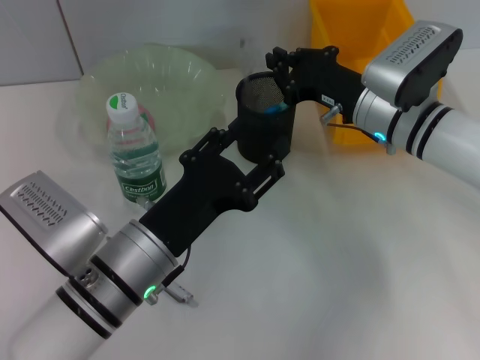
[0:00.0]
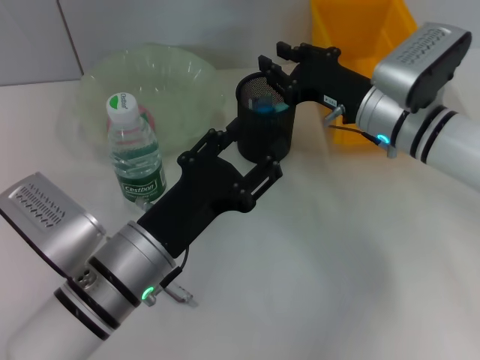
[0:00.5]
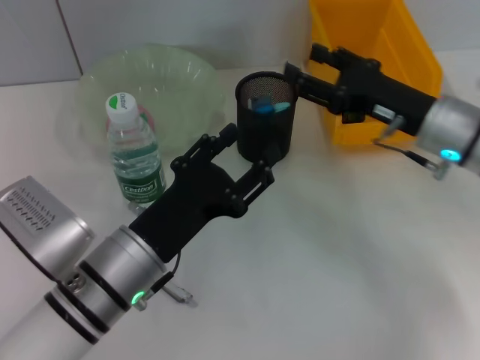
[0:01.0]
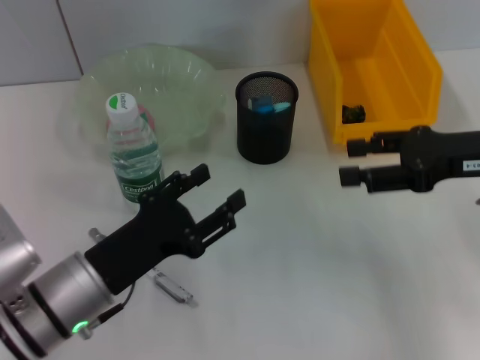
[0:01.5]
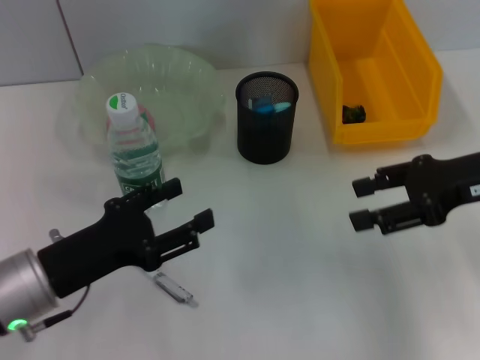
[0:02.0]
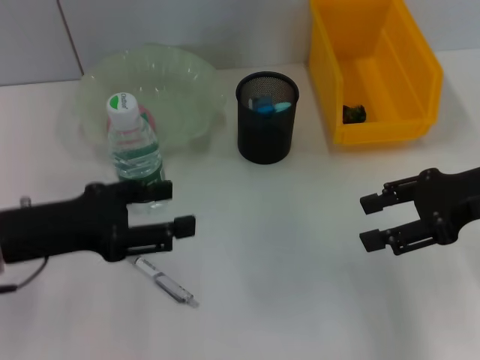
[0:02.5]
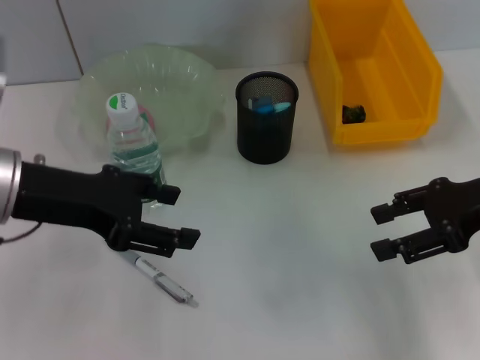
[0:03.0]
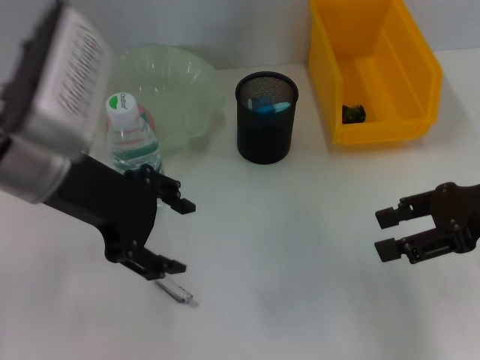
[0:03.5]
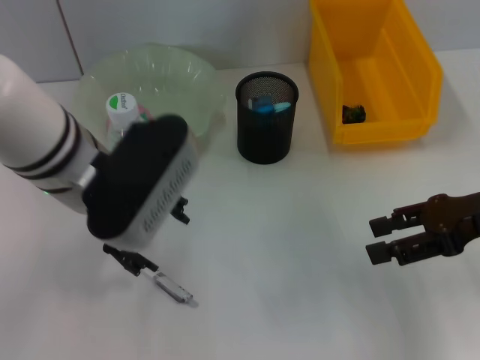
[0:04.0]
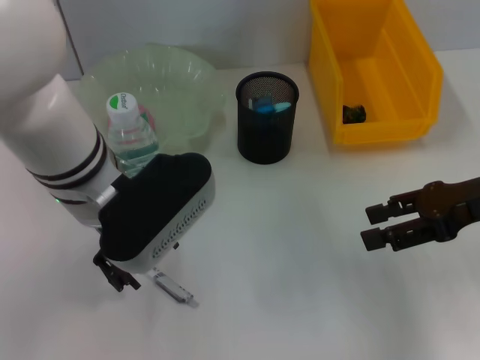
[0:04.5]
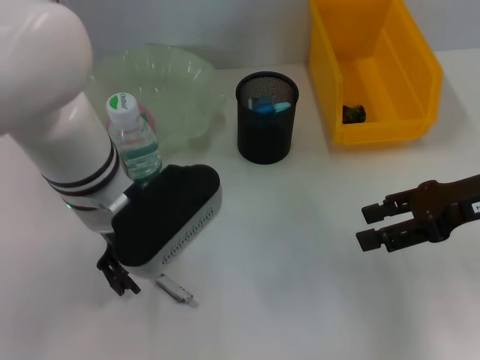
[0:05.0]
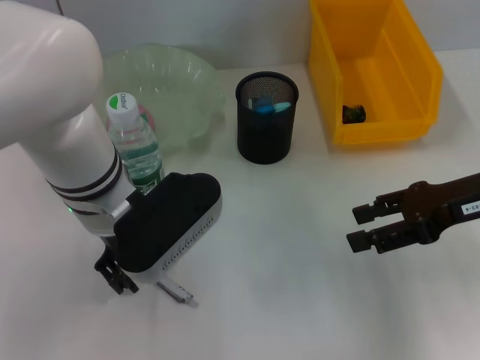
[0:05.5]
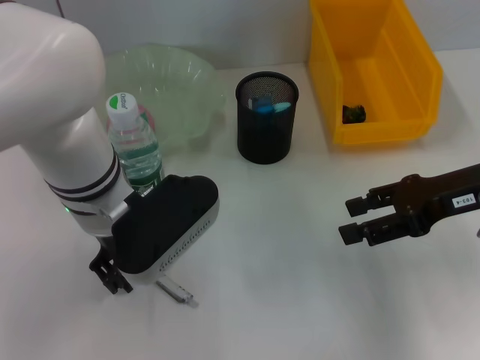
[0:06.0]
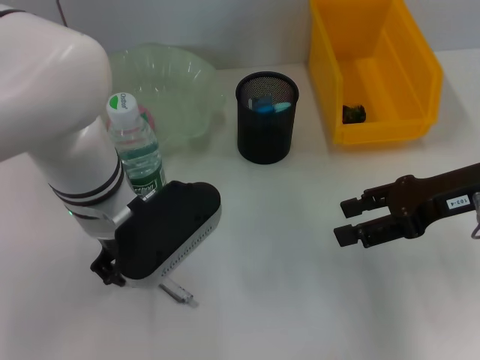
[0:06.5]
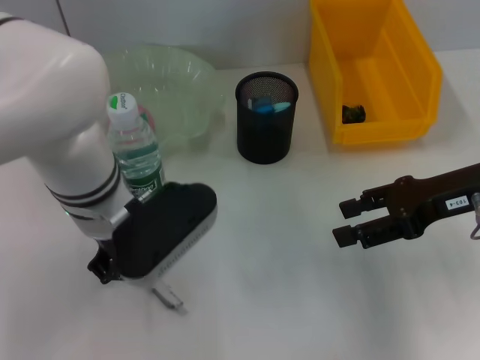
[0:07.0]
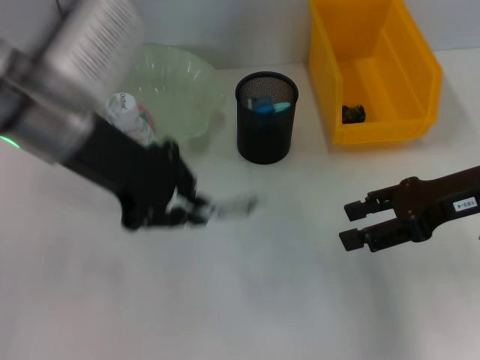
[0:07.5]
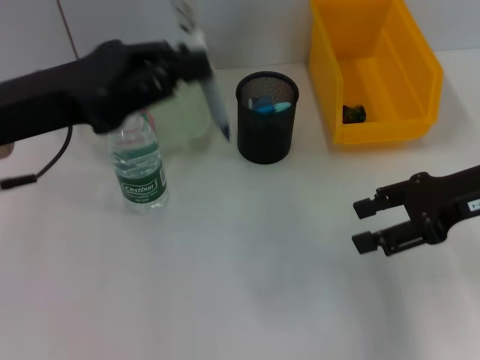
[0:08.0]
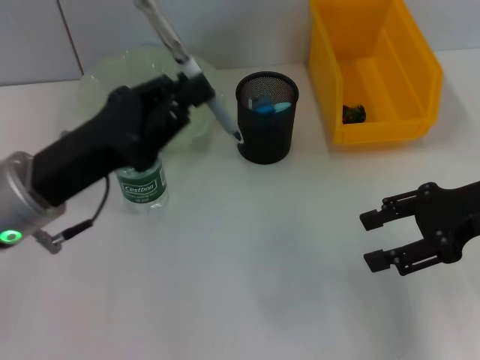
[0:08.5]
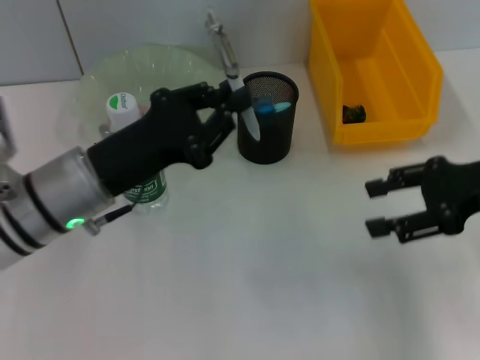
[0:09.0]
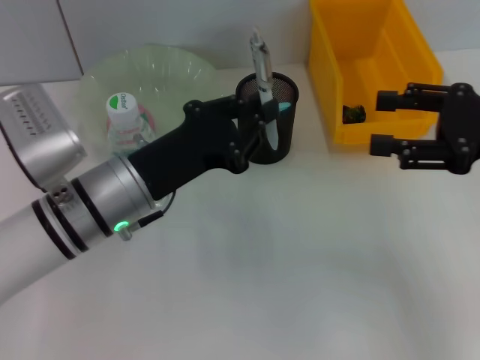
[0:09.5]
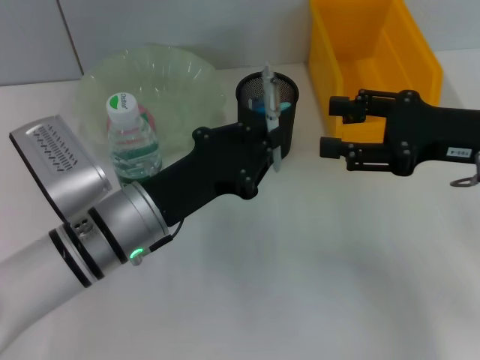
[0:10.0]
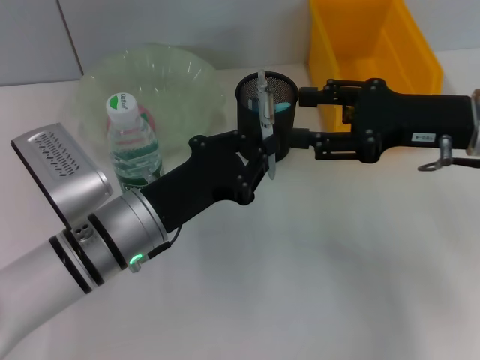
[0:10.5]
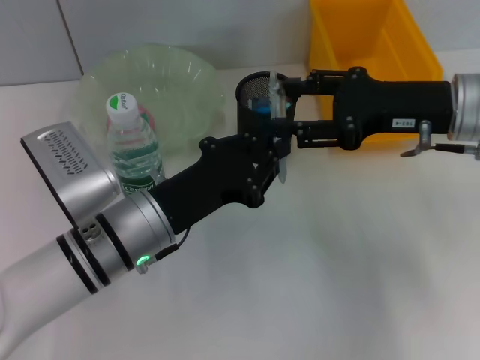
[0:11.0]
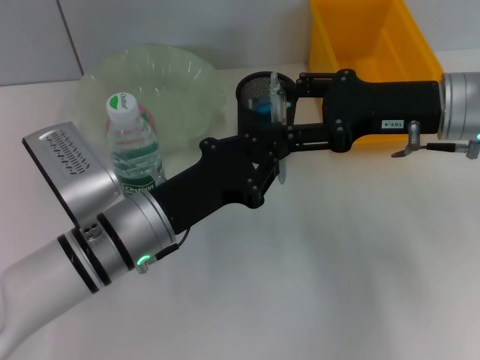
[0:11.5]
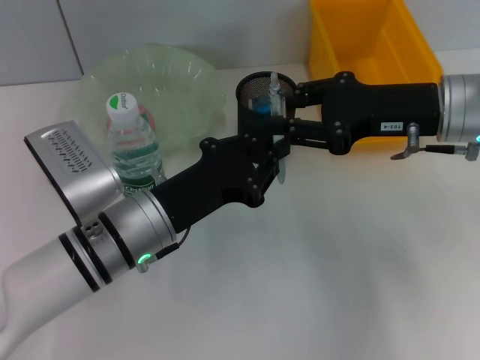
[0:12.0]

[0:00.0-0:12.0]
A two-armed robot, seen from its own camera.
Step, 0:00.5 to 0:06.5: Grab the gray spring-action pen with the left hand.
0:00.0 to 0:02.0: The right gripper shifts some 15 cm to the right, backward and upward, and opens up; the left gripper goes some 10 cm to the left.
0:02.0 to 0:04.0: The left gripper heads upward, forward and to the right, covering some 15 cm.
0:06.0 to 0:08.0: The left gripper moves to the left and upward, roughly 10 cm, and closes its fingers.
0:08.0 to 0:10.0: The left gripper goes roughly 15 cm downward and to the right.
0:10.0 to 0:12.0: The right gripper ends up about 5 cm from where it was.

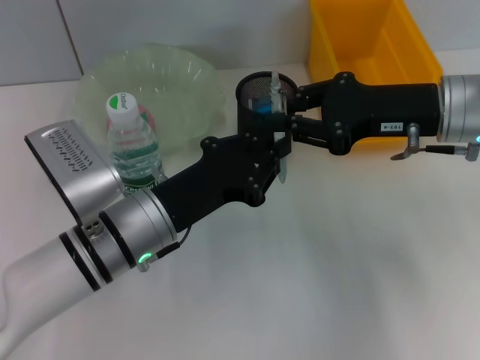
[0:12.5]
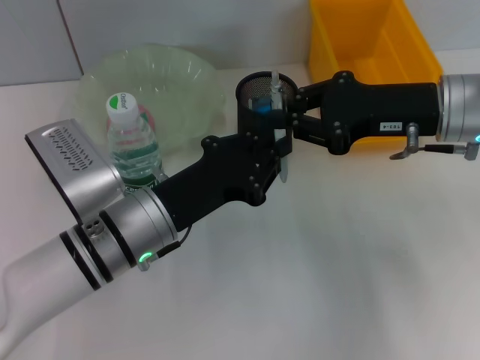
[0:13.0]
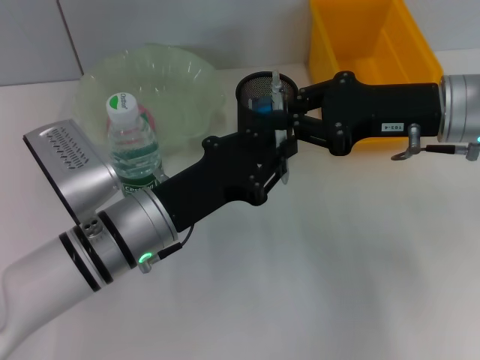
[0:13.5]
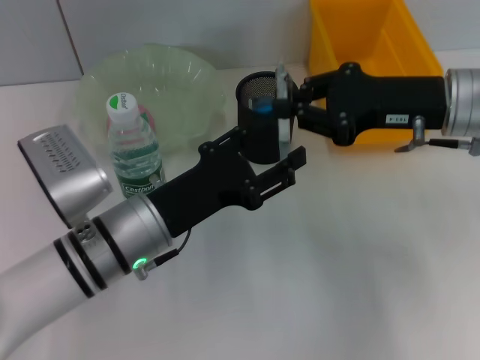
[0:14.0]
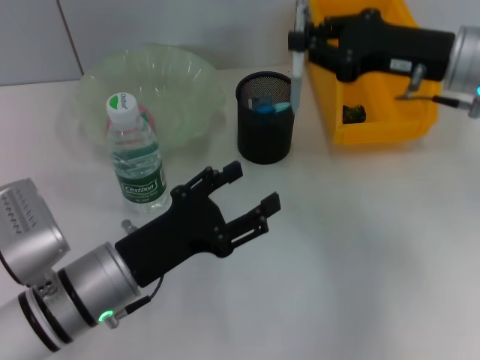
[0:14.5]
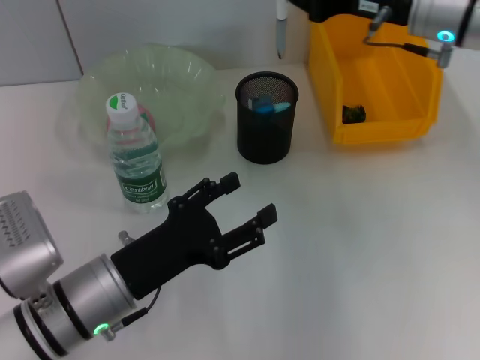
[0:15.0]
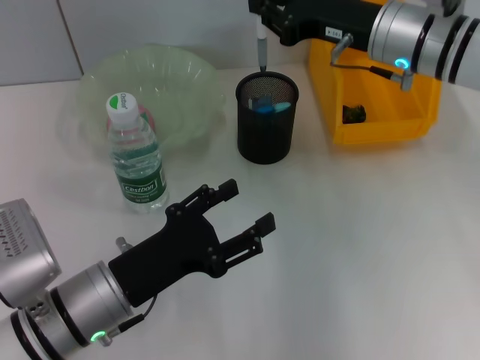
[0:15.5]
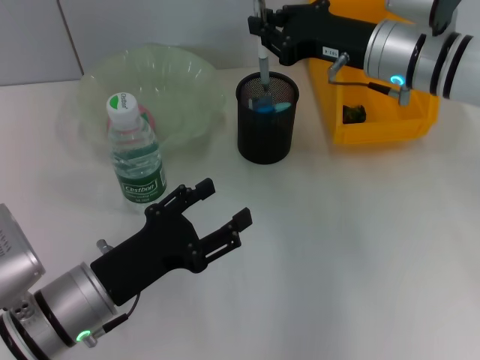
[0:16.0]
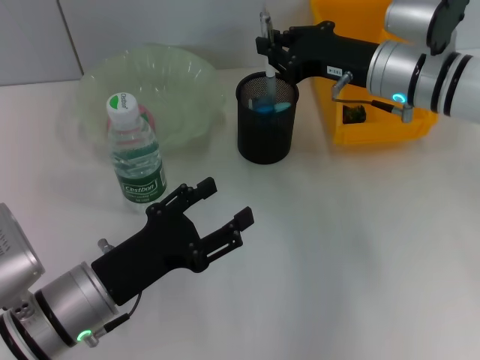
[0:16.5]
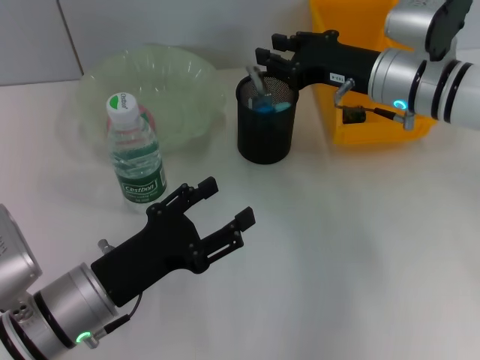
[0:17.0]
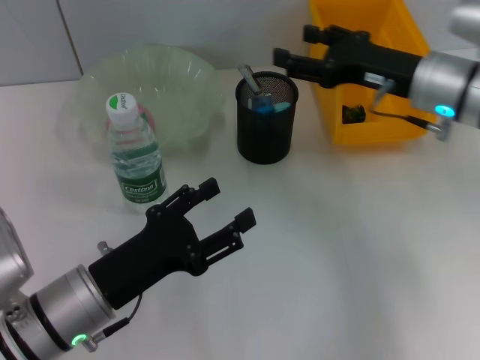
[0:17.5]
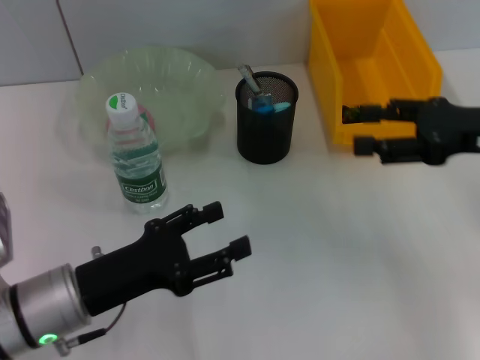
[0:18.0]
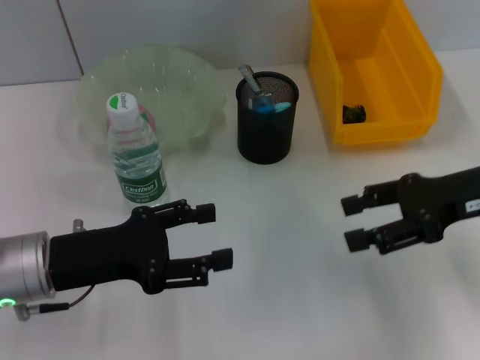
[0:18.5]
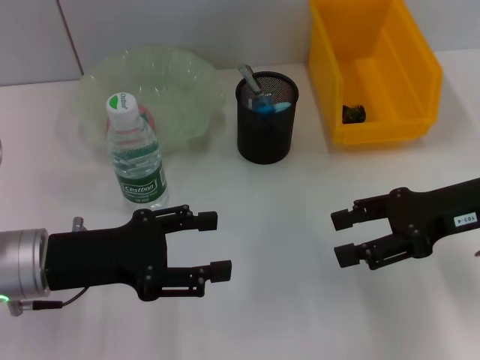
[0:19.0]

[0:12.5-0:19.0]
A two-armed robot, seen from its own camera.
Step, 0:14.5 to 0:17.0: Place the gray spring-action pen into the pen holder with the right hand.
0:12.5 to 0:14.5: The left gripper ends up roughly 5 cm from where it was, and opens its fingers.
0:14.5 to 0:17.0: The right gripper moves downward, some 5 cm.
0:17.0 to 0:19.0: The right gripper is displaced backward and to the right by roughly 15 cm, and opens, while the left gripper heads upward, covering some 5 cm.

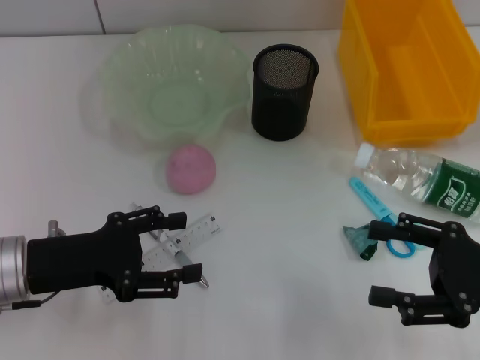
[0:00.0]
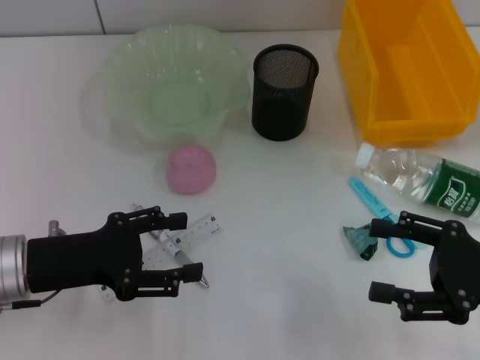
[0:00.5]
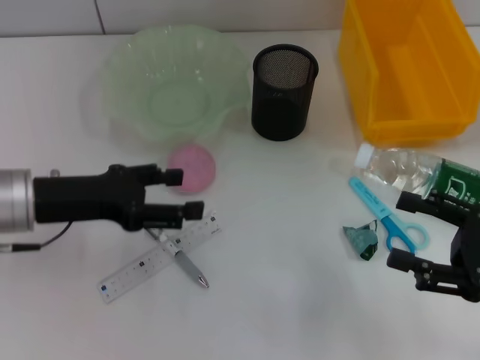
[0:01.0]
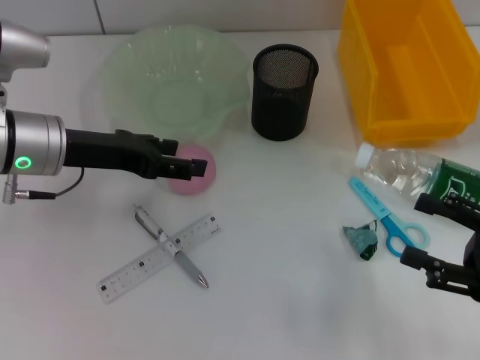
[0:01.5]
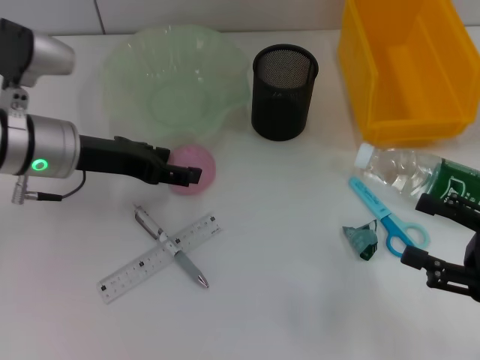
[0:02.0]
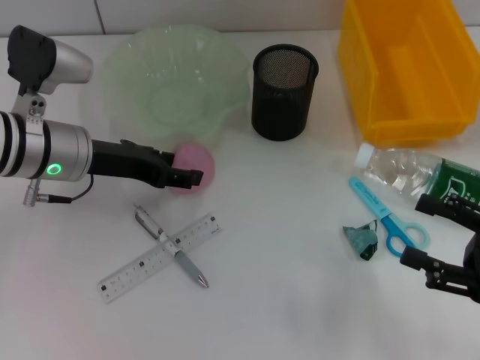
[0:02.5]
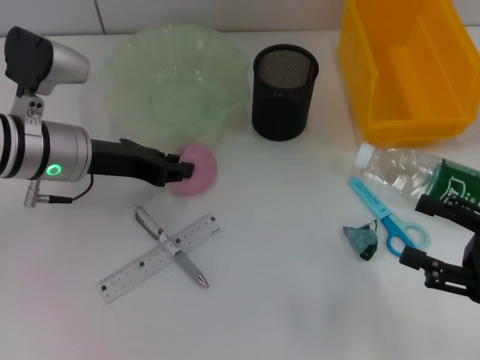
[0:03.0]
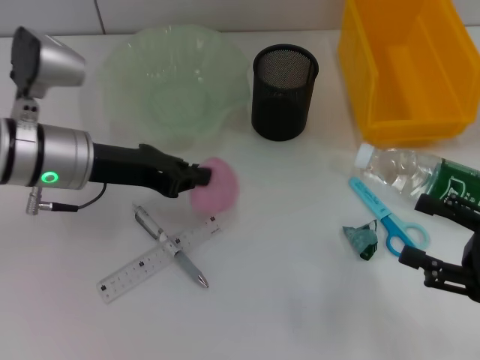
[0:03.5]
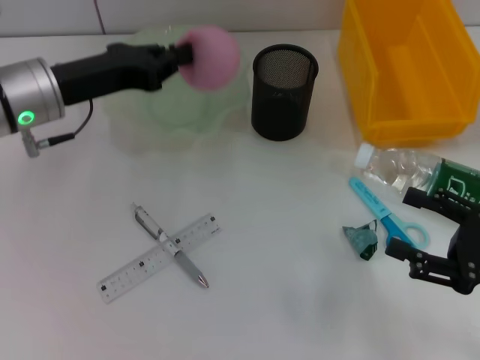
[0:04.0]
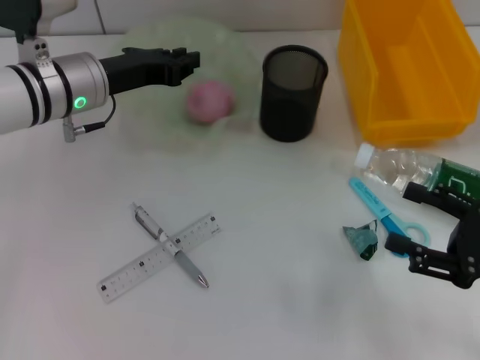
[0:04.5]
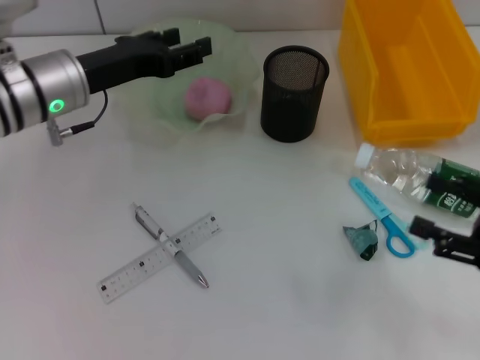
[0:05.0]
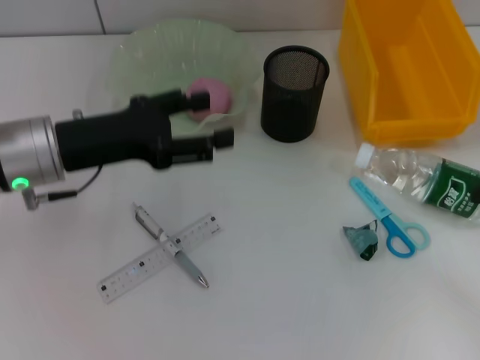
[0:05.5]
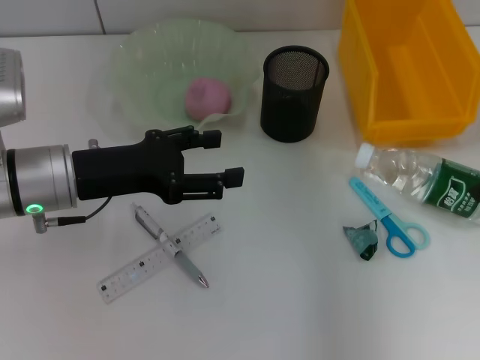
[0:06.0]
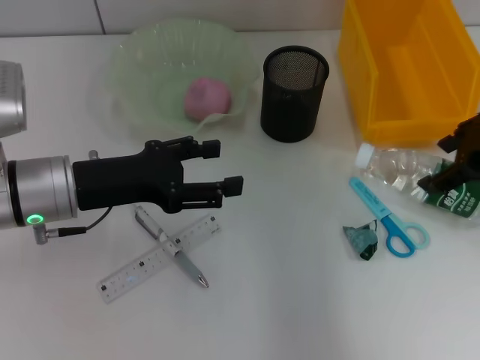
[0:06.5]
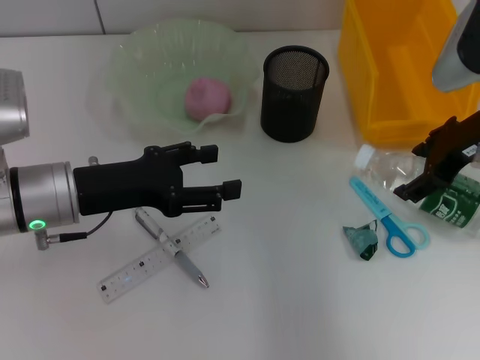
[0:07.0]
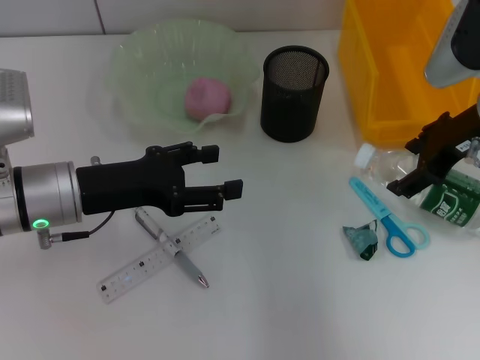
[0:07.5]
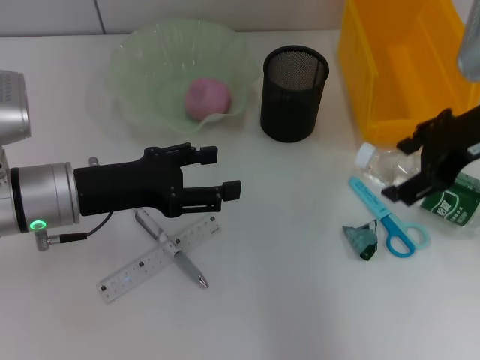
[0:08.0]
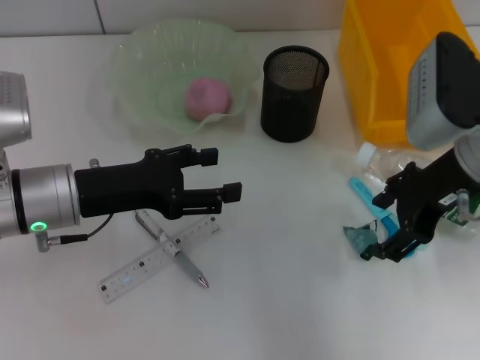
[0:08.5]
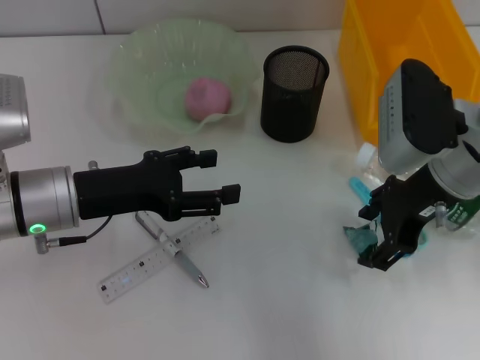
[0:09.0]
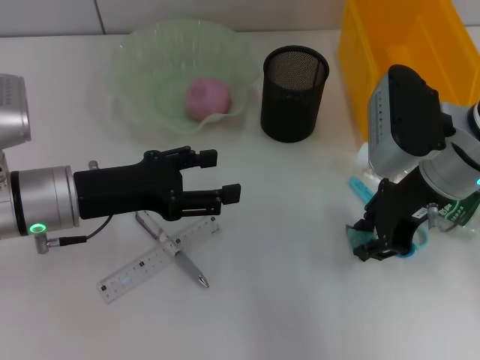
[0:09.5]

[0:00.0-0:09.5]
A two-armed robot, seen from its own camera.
Step, 0:00.0 to 0:03.0: Grab the peach with the left hand.
Step, 0:03.5 to 0:04.5: Place the peach into the fruit bowl with the left hand.
0:00.0 to 0:02.0: The left gripper heads forward, covering approximately 10 cm.
0:02.0 to 0:04.0: The left gripper closes.
0:04.0 to 0:05.5: The left gripper opens; the right gripper moves upward and to the right, roughly 10 cm.
0:05.5 to 0:07.5: The right gripper is displaced to the left and forward by about 20 cm.
0:07.5 to 0:09.5: The right gripper moves to the left, about 5 cm, and closes.
